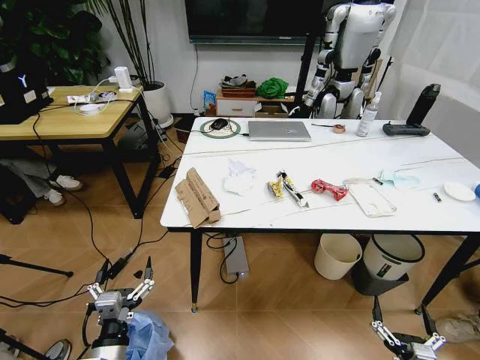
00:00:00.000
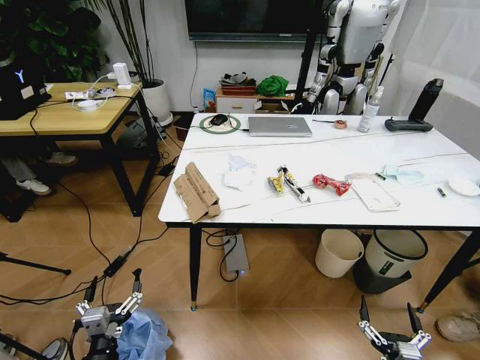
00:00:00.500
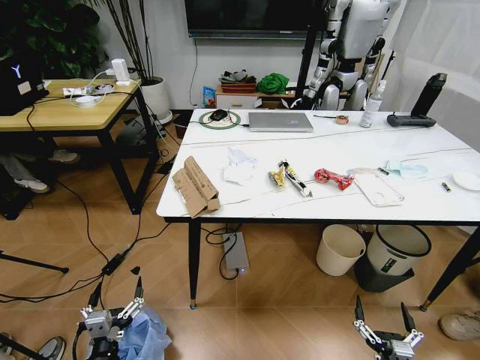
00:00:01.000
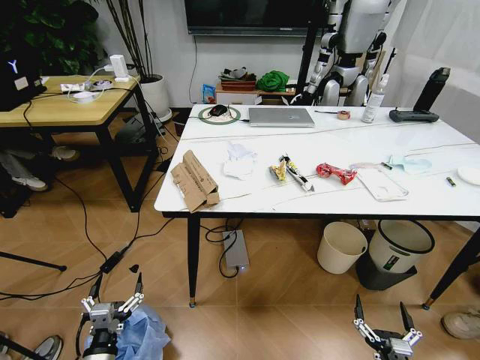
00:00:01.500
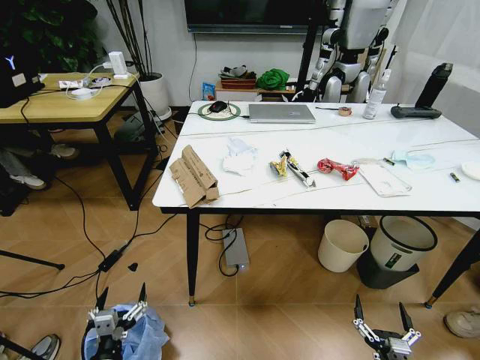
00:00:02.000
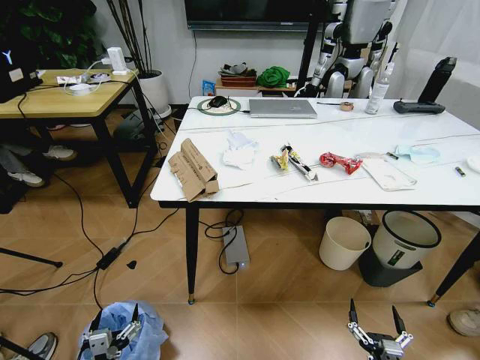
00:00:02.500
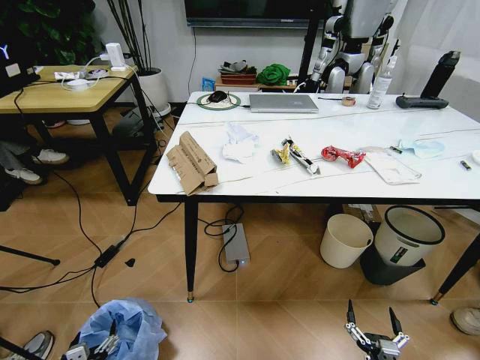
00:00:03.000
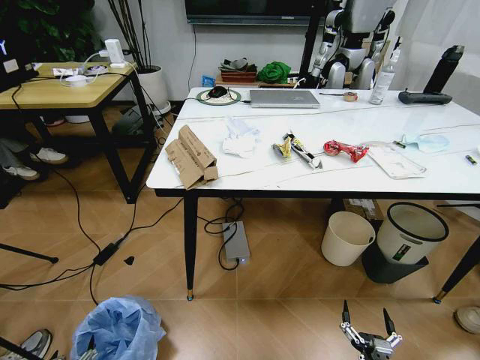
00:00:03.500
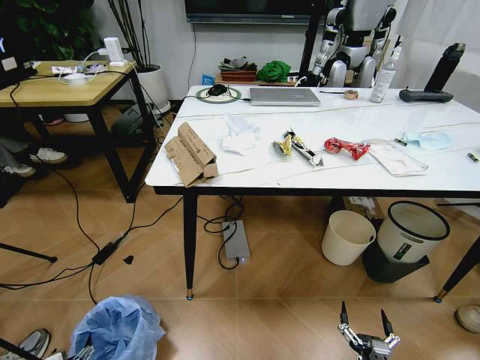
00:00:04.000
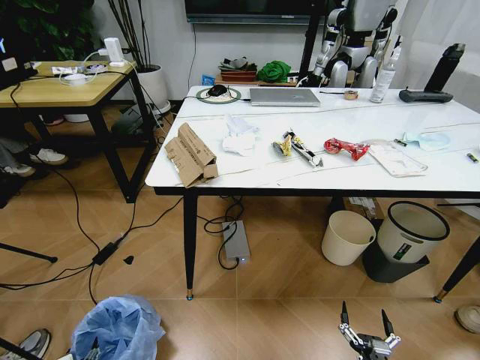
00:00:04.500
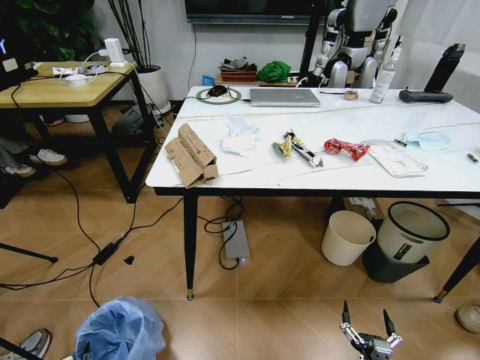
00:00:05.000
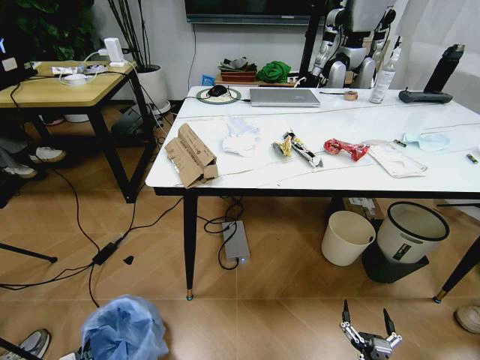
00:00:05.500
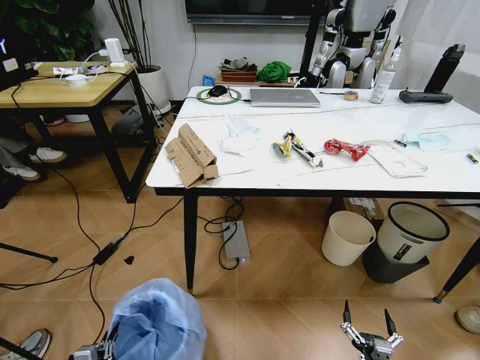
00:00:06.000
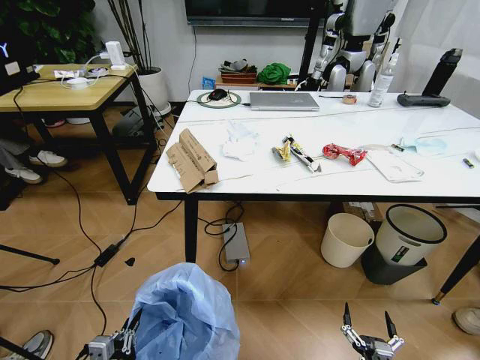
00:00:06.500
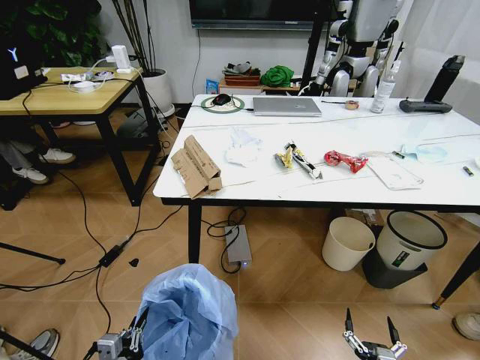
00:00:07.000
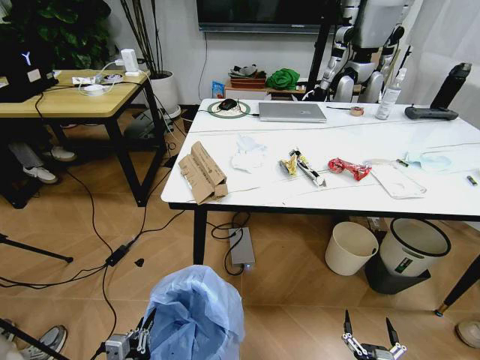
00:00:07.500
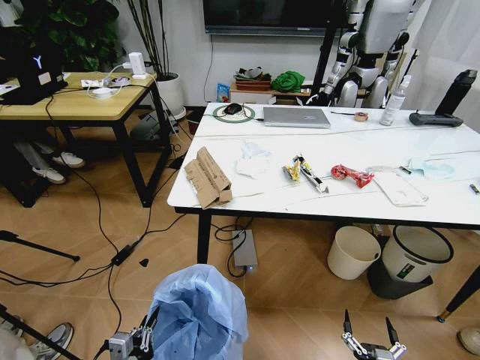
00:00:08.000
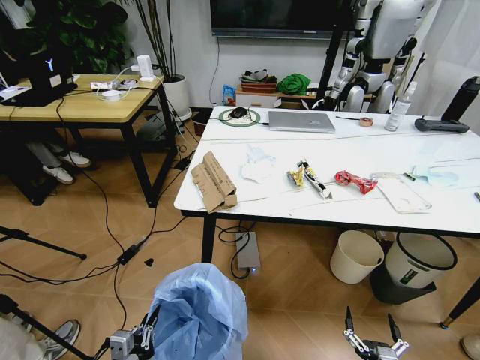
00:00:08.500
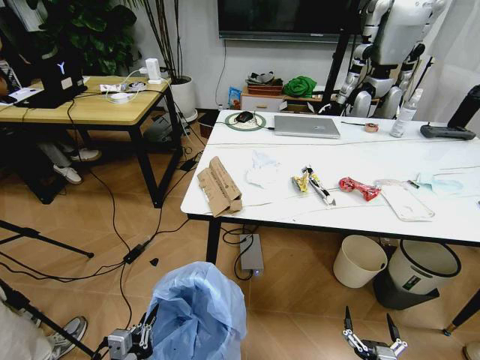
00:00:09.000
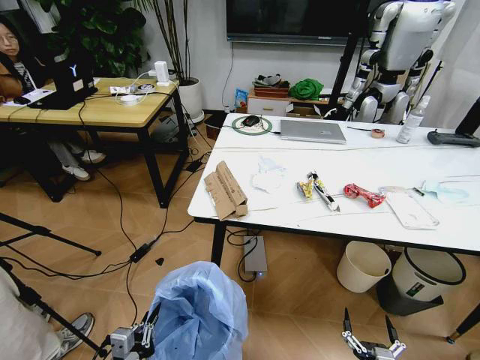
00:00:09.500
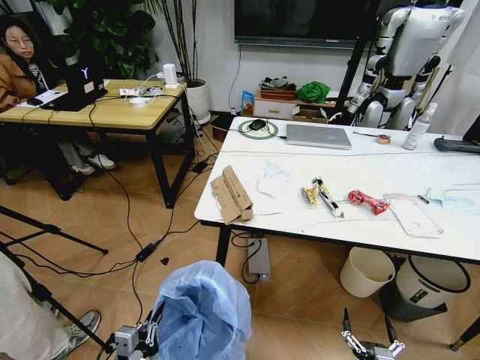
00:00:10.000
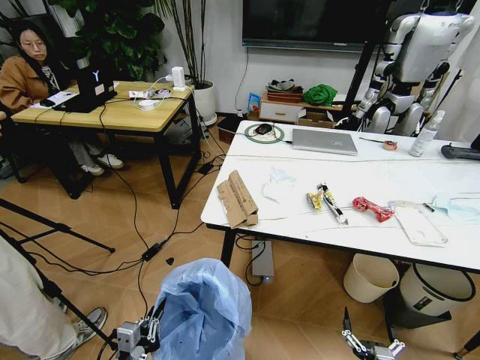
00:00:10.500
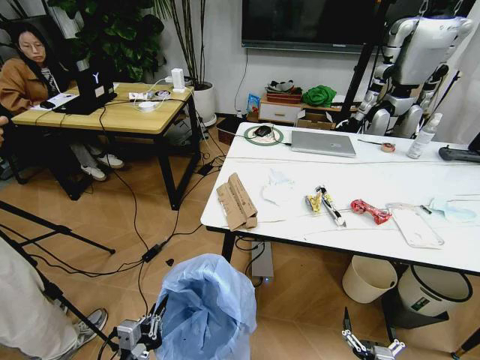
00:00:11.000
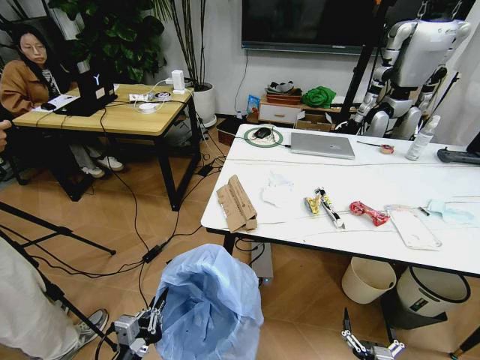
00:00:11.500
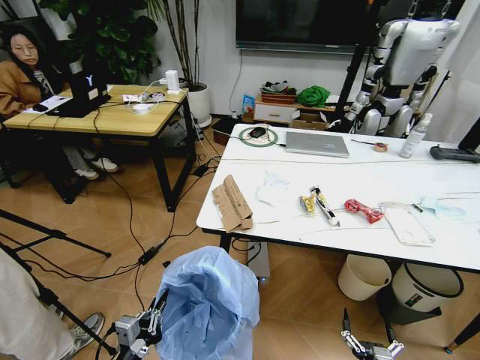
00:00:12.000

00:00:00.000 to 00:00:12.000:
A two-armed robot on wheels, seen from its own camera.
Task of the whole recording: Pick up the trash bin and place the trash from the table into it.
00:00:02.000 to 00:00:04.000: The left gripper goes some 20 cm to the left and downward.
00:00:04.000 to 00:00:06.000: The left gripper is displaced upward and to the right by roughly 15 cm, and closes up.
00:00:06.000 to 00:00:08.000: The left gripper travels to the right and upward by approximately 10 cm.

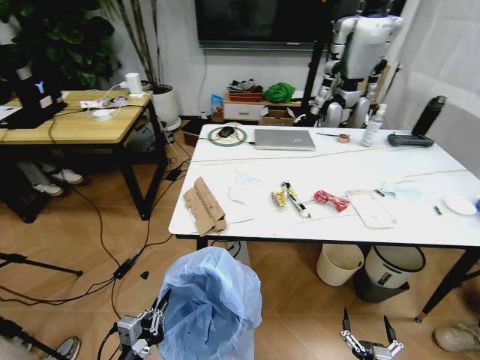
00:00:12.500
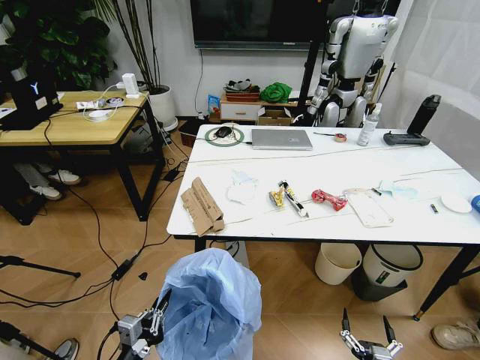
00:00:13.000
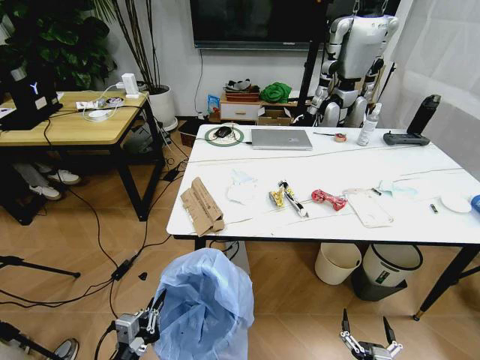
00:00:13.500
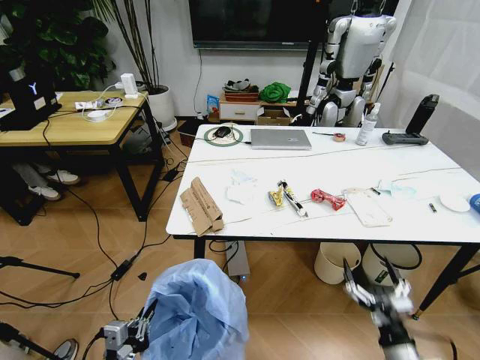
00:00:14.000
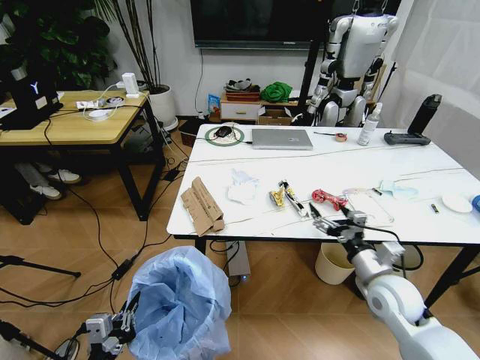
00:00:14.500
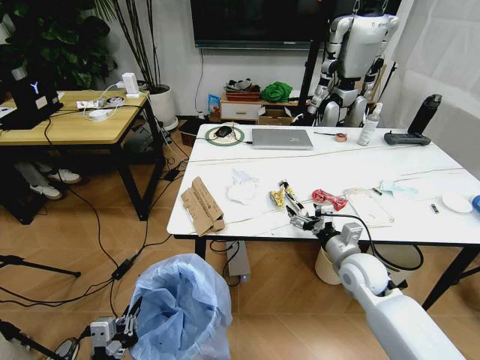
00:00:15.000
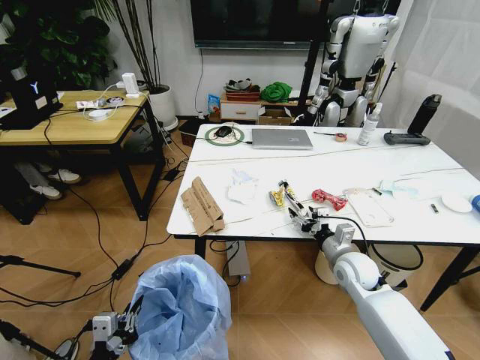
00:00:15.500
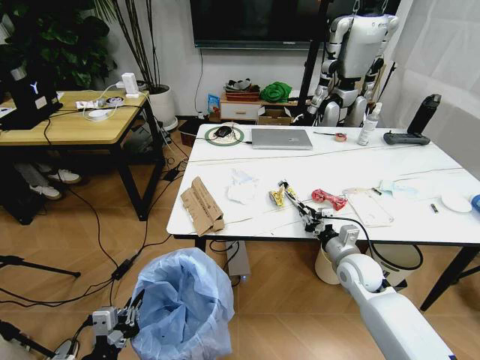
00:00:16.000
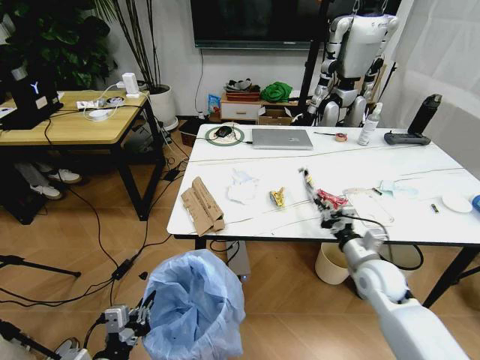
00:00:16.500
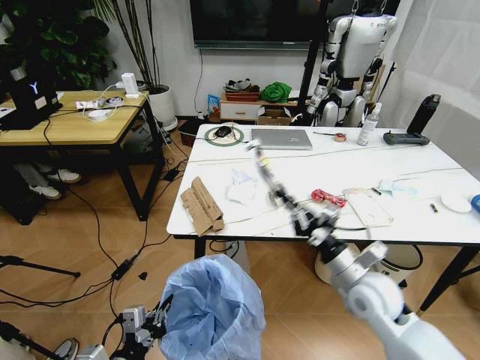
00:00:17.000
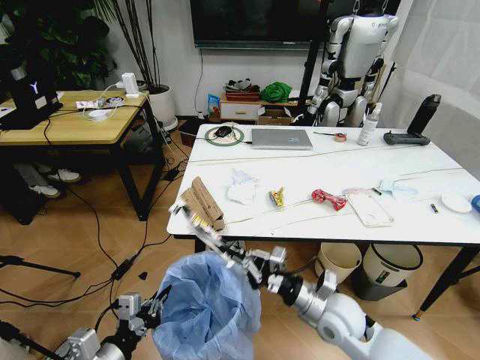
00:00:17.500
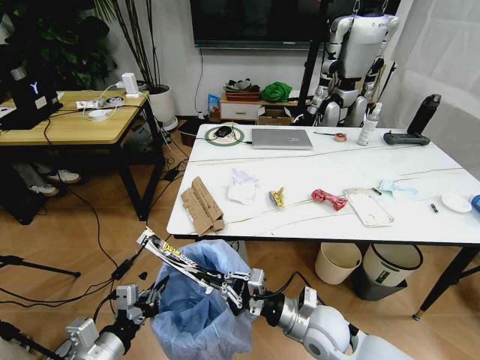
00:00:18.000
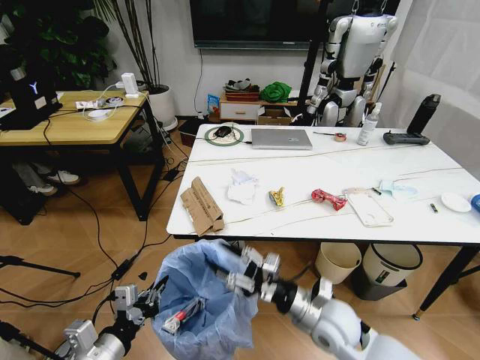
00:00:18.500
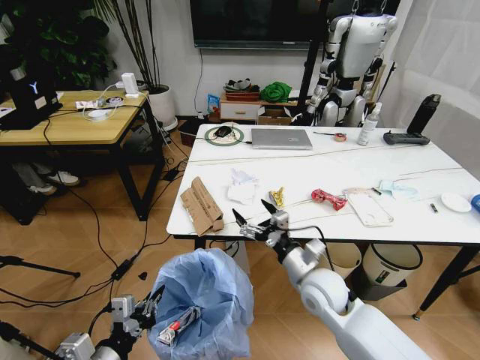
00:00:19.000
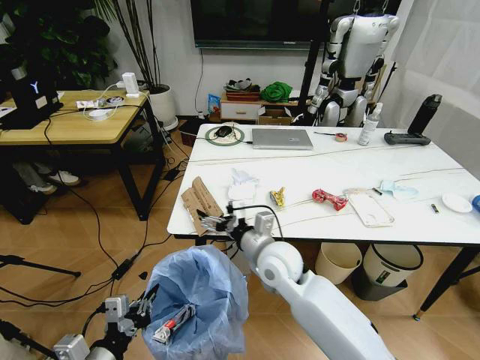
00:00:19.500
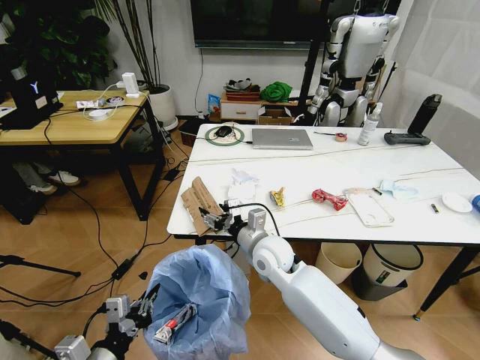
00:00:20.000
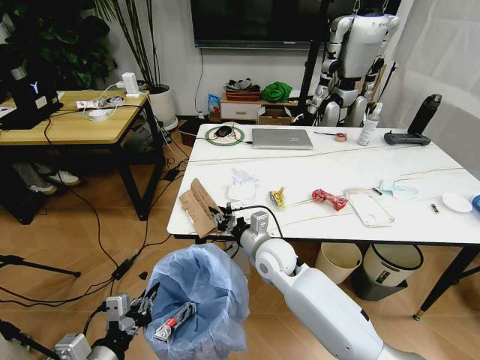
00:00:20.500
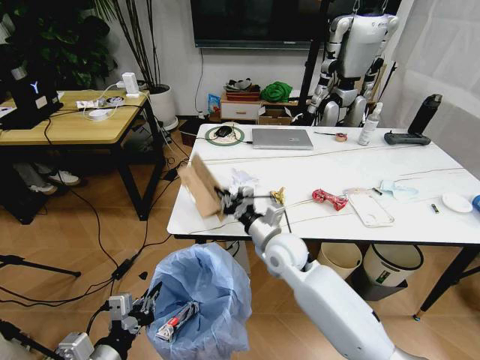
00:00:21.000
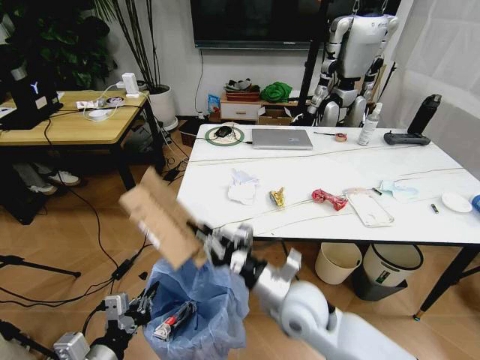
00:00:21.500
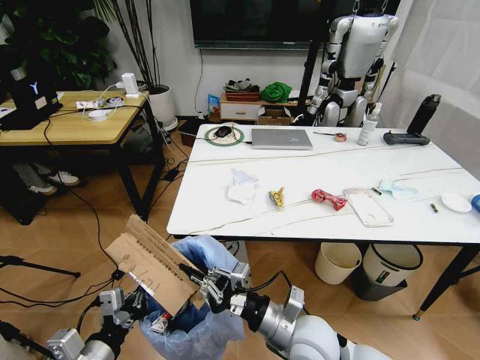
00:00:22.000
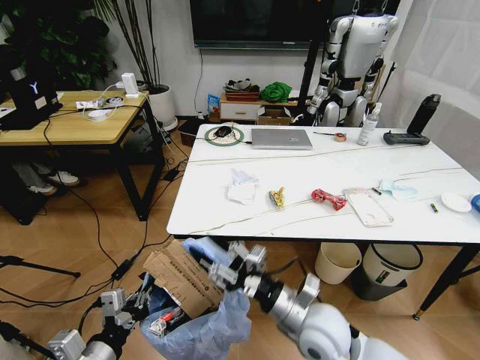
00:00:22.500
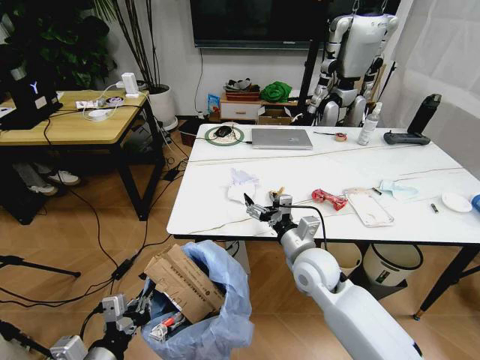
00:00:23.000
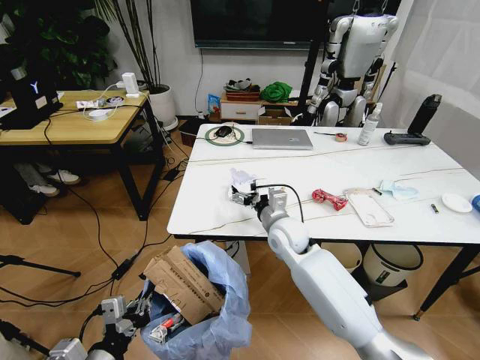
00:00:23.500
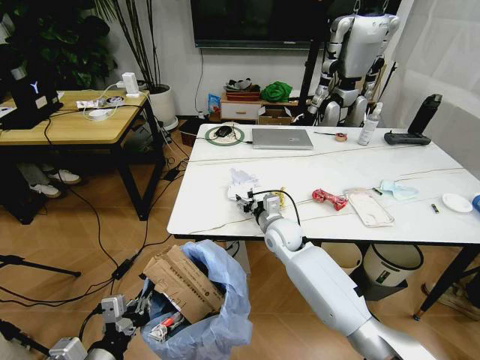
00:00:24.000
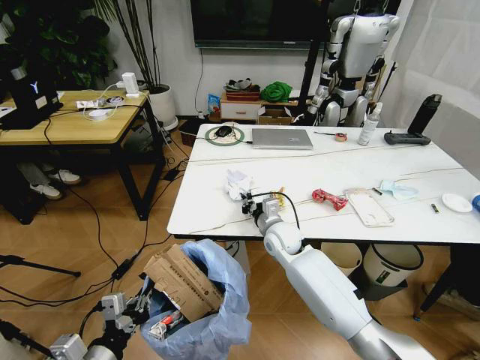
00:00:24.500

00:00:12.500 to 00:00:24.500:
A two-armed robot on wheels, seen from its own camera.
Task of the whole recording: Pick up the trash bin and place the trash from the table into it.
00:00:12.500 to 00:00:14.500: The right gripper travels forward and upward by some 35 cm. Meanwhile the left gripper changes place by about 5 cm.
00:00:14.500 to 00:00:16.500: The right gripper closes up.
00:00:16.500 to 00:00:18.500: The left gripper ends up some 5 cm from where it was; the right gripper is displaced to the left and backward by some 15 cm, and opens its fingers.
00:00:18.500 to 00:00:20.500: The right gripper heads forward and to the left, covering roughly 20 cm, and opens, then closes again.
00:00:20.500 to 00:00:22.500: The right gripper is displaced backward and to the right by some 15 cm.
00:00:22.500 to 00:00:24.500: The right gripper is displaced forward by roughly 20 cm, and opens and closes again.

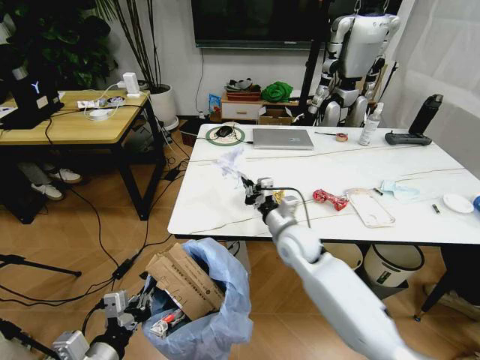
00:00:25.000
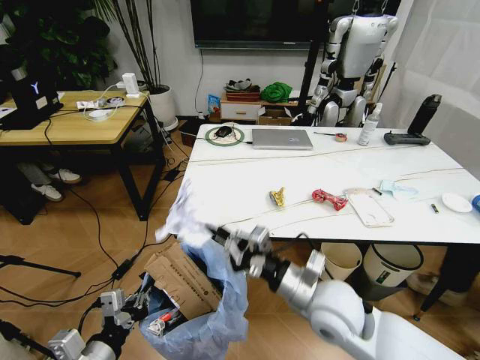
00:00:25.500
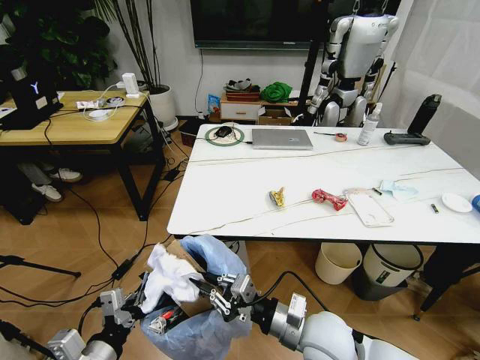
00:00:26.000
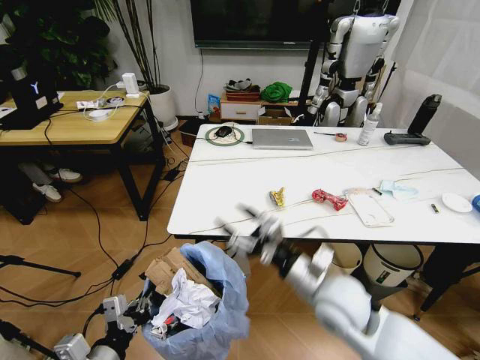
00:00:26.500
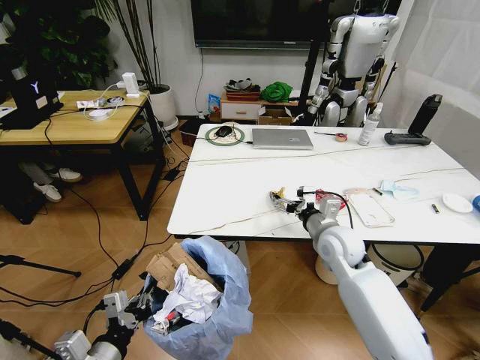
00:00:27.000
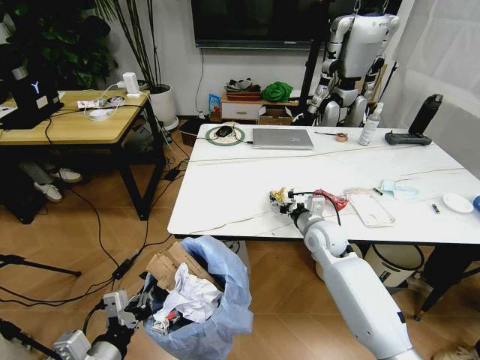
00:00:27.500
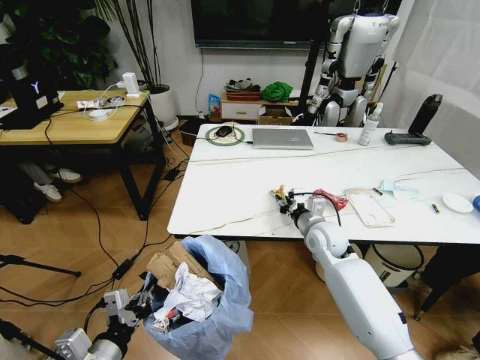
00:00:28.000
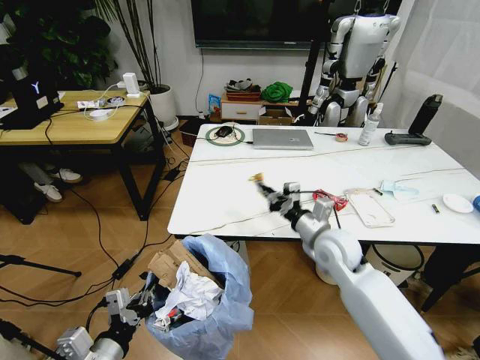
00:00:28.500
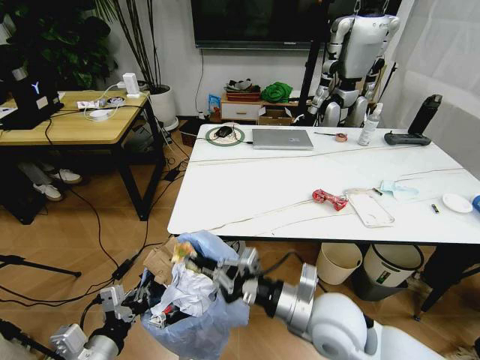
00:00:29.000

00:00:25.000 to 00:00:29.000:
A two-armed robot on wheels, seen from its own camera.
Task of the whole recording: Pick up the trash bin and place the trash from the table into it.
00:00:25.000 to 00:00:27.000: The right gripper heads to the right, covering about 10 cm, moves about 20 cm backward and comes back, and opens its fingers.
00:00:27.000 to 00:00:29.000: The right gripper shifts about 15 cm backward and to the left, and closes up.
